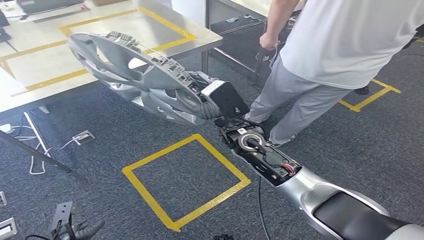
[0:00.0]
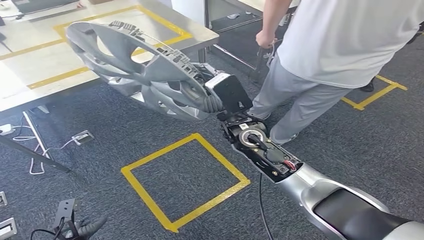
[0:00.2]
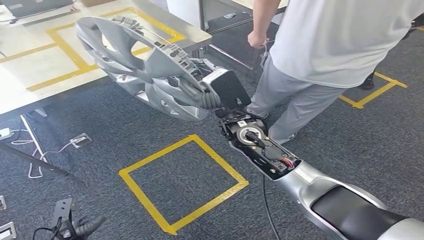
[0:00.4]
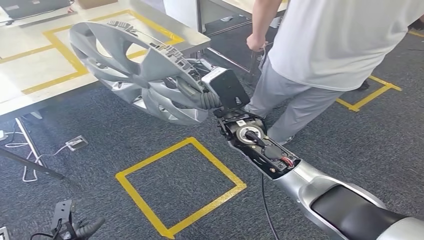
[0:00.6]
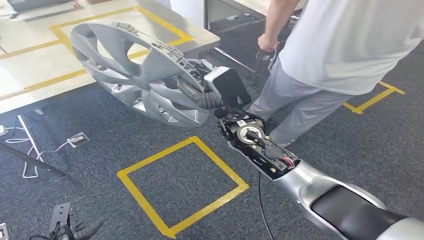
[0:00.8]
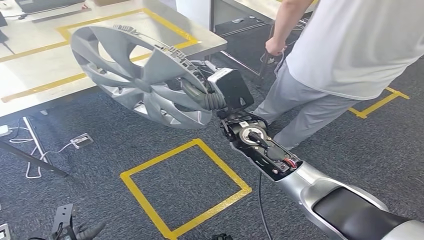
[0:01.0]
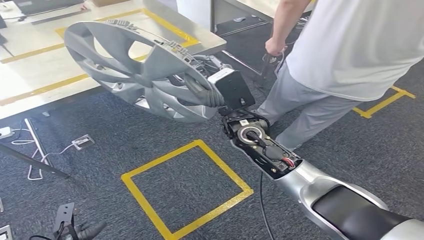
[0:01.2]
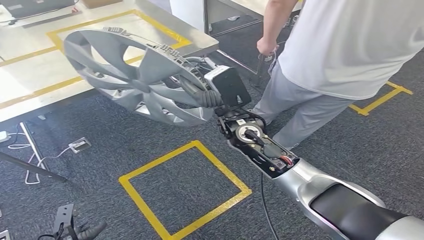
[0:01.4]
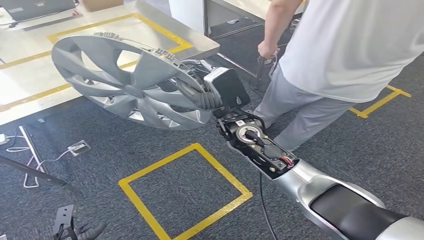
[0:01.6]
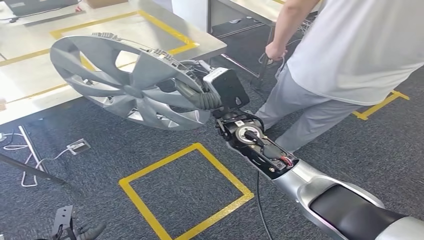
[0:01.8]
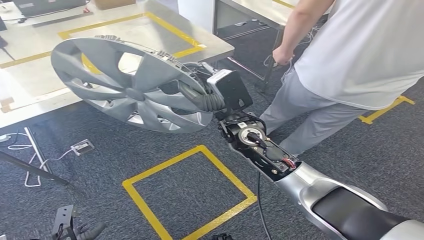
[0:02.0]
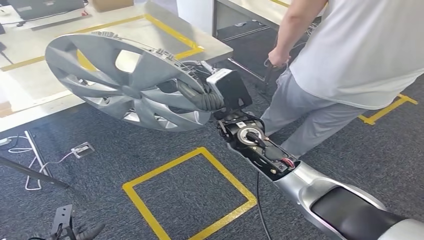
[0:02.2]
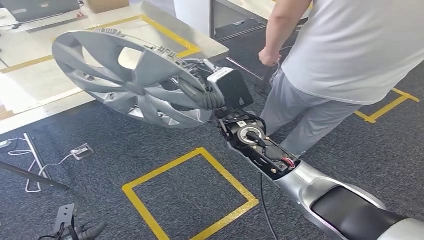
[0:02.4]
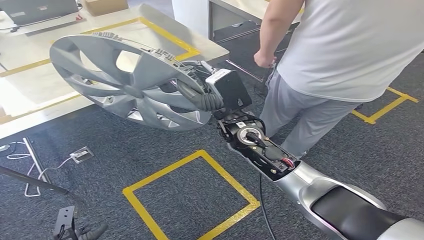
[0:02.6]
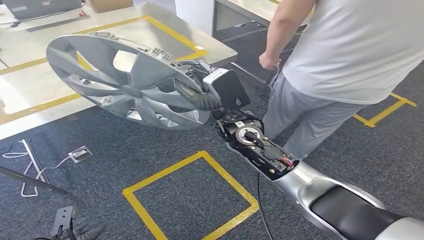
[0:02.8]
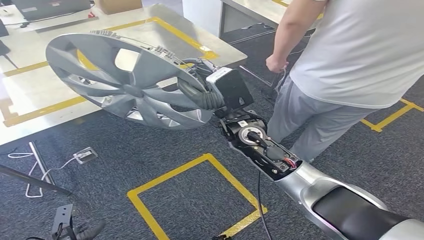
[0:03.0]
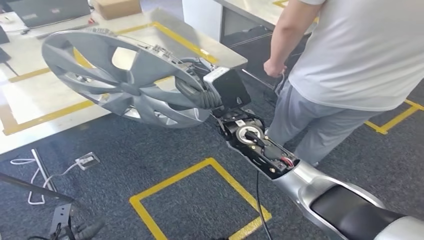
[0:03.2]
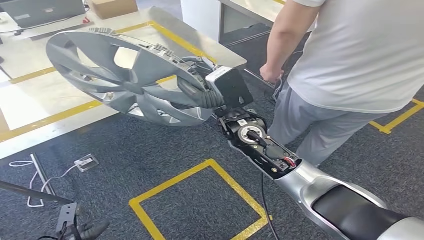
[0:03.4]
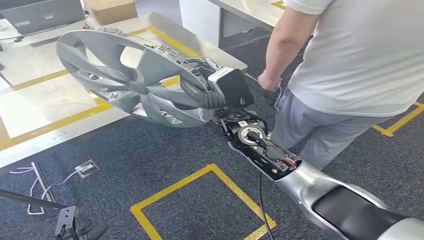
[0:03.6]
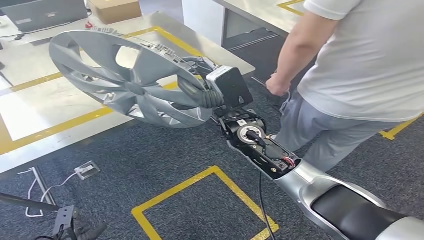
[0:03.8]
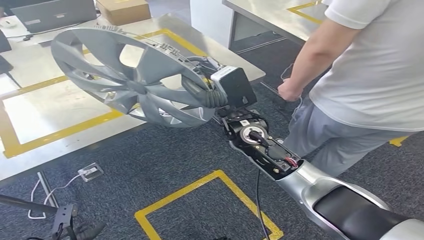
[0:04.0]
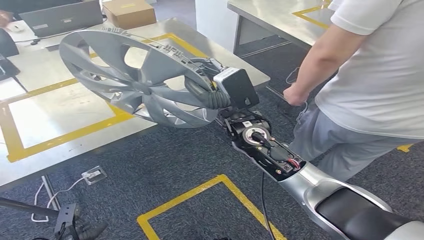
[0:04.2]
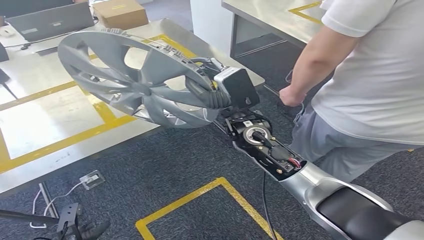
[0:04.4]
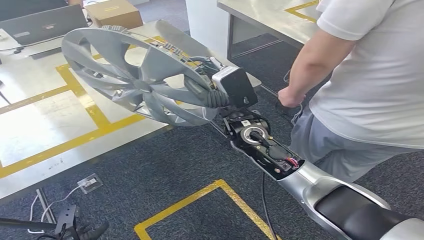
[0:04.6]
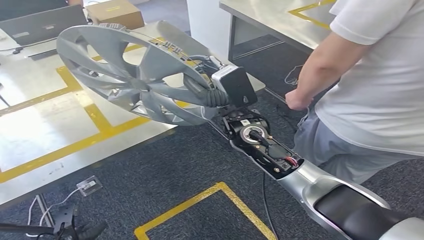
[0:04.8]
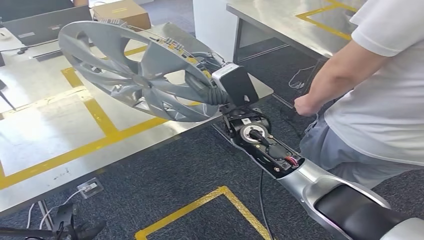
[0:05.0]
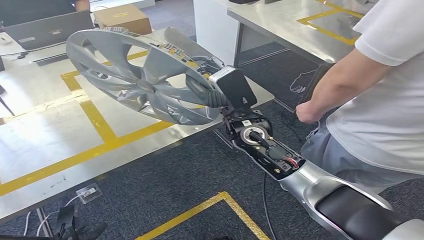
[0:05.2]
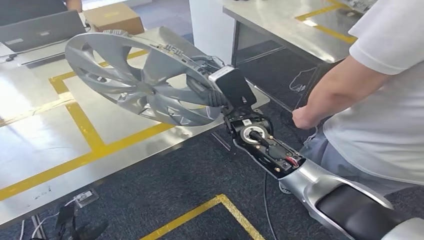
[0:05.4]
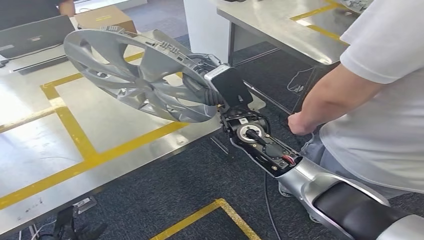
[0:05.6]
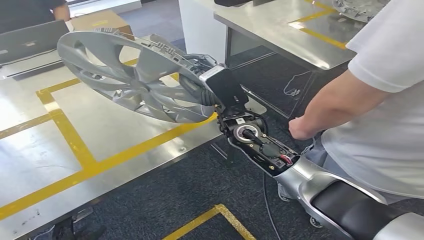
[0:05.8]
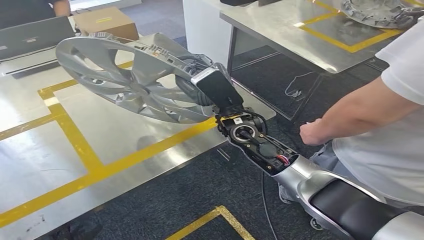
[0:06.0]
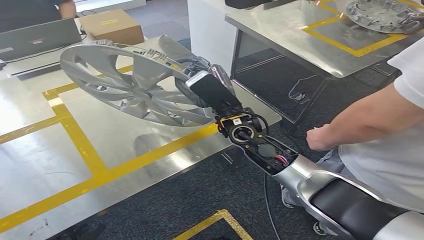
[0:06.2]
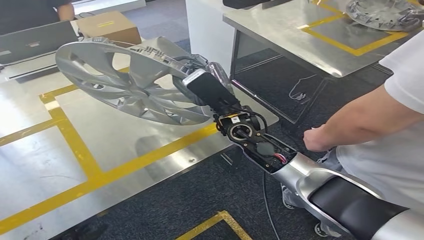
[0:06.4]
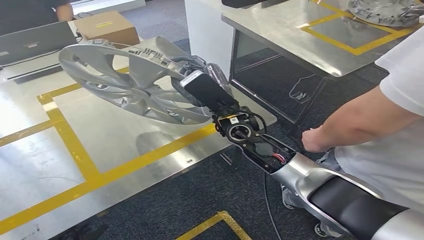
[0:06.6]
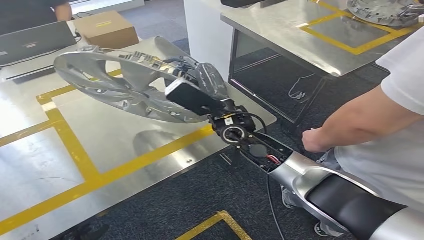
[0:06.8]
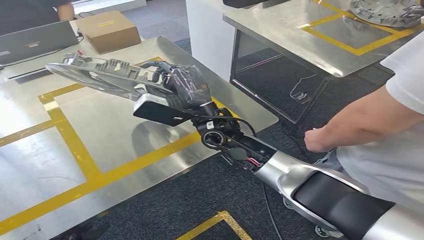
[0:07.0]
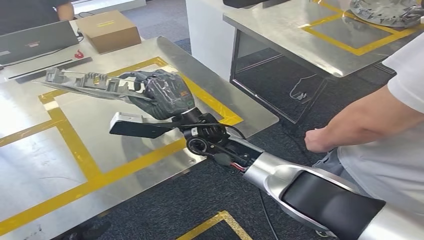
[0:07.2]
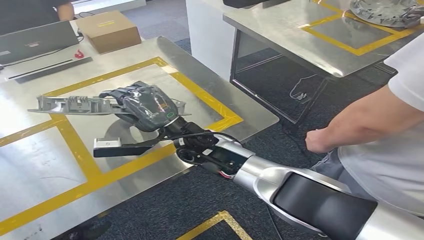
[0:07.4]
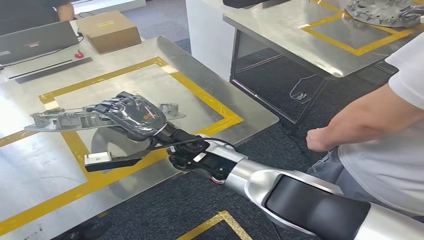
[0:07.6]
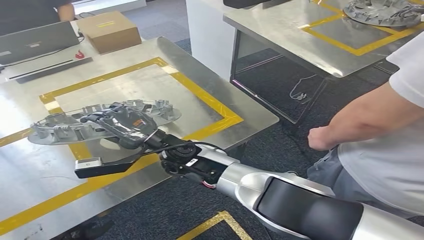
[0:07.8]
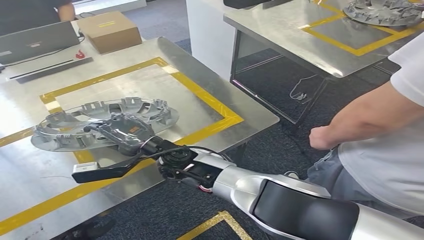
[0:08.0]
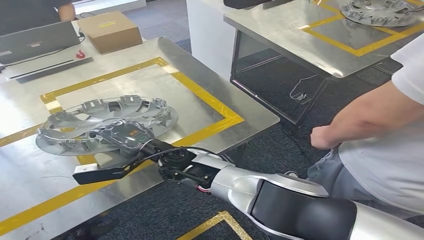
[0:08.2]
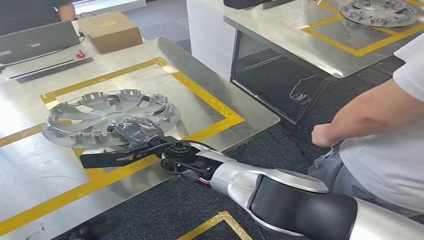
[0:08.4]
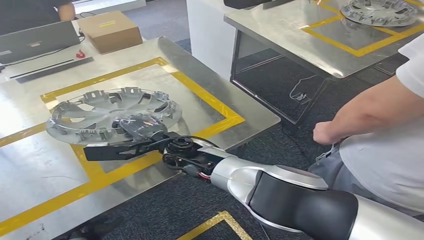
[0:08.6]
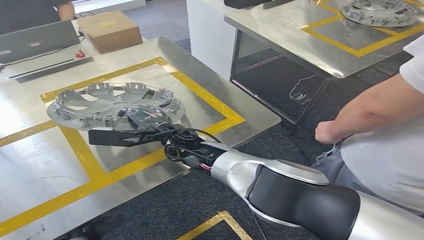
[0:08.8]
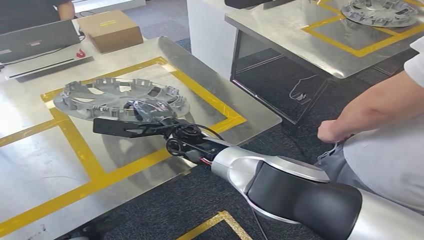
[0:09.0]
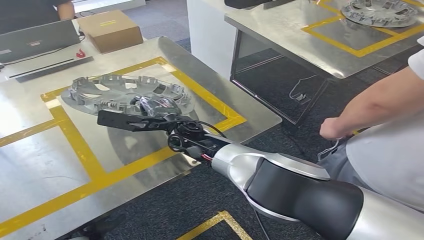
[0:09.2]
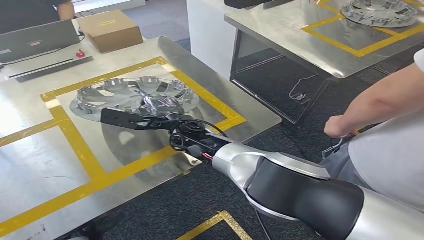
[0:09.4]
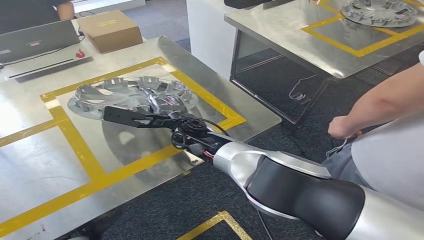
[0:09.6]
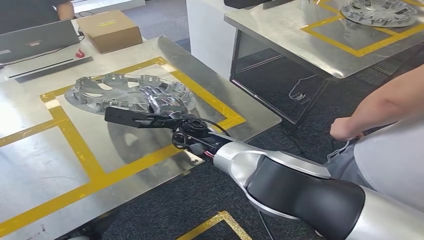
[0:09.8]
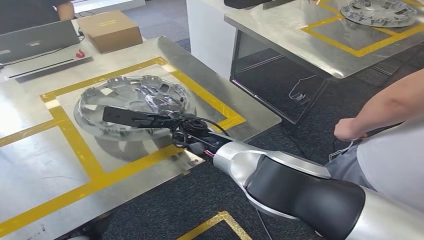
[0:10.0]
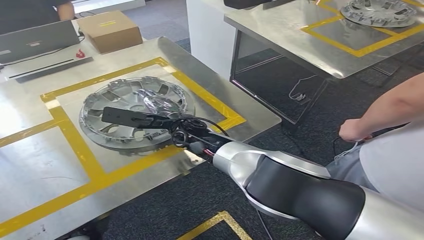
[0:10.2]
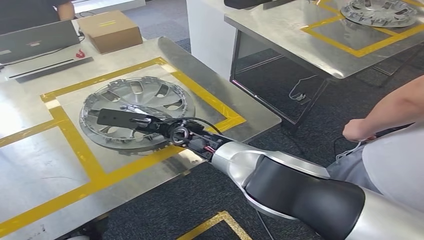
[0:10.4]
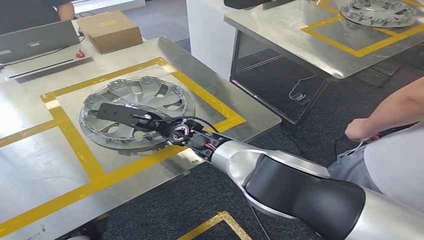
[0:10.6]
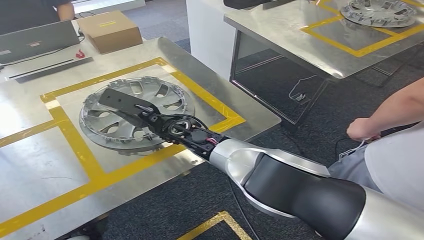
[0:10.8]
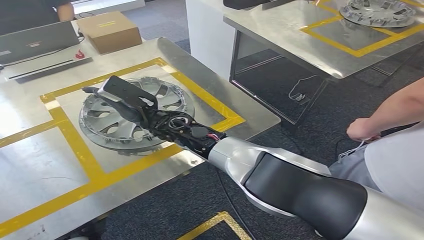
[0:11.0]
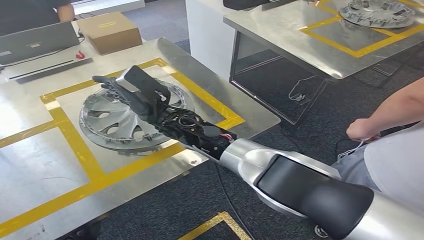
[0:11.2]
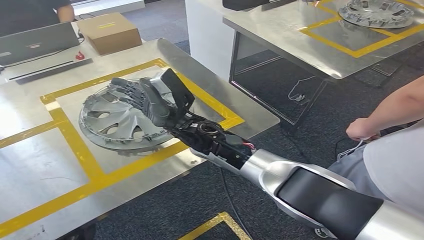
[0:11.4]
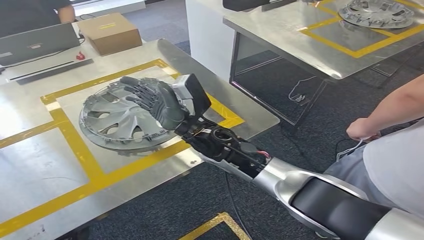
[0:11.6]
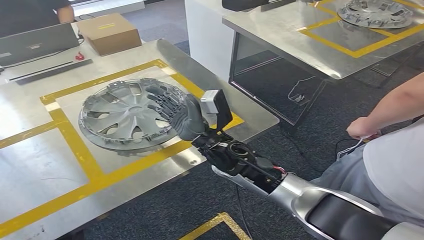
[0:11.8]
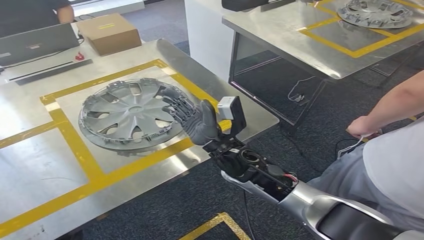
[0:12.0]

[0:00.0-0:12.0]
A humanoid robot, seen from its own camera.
Step, 0:00.0 to 0:05.6: Move the small component to the workbench.

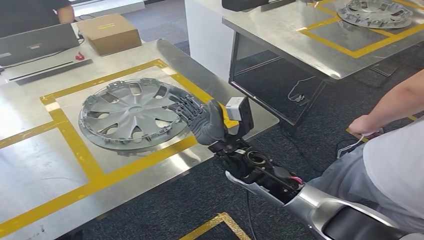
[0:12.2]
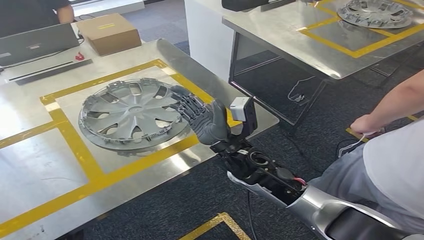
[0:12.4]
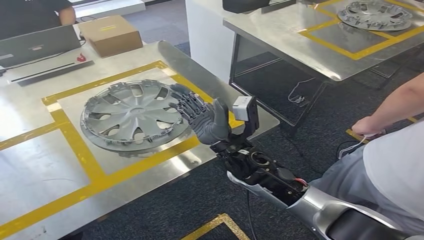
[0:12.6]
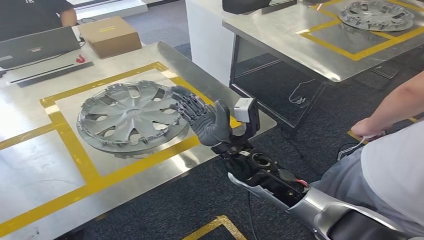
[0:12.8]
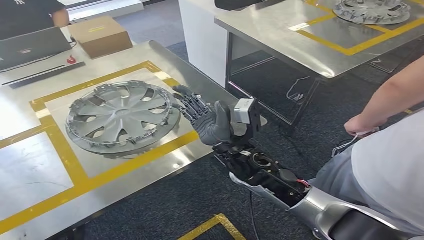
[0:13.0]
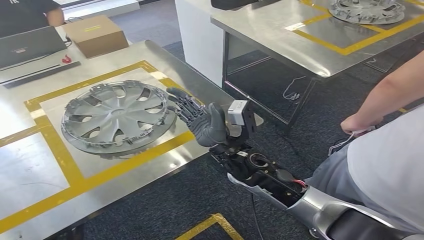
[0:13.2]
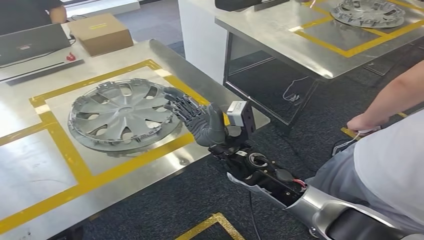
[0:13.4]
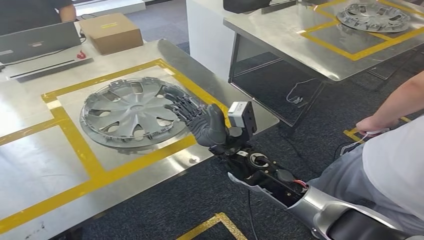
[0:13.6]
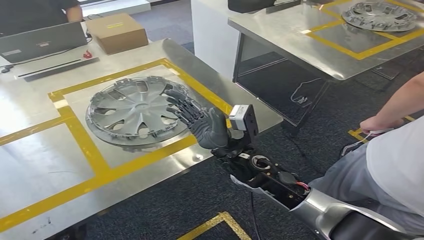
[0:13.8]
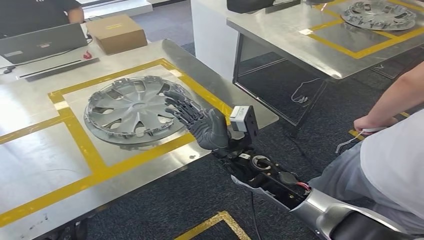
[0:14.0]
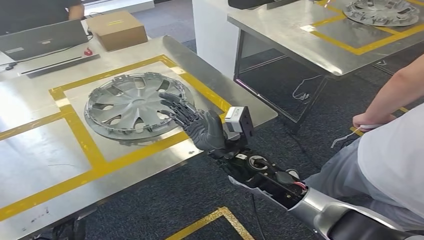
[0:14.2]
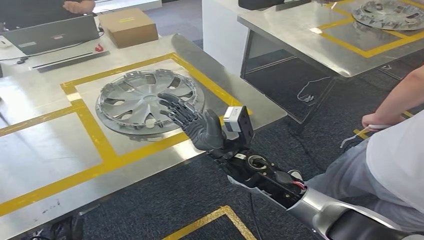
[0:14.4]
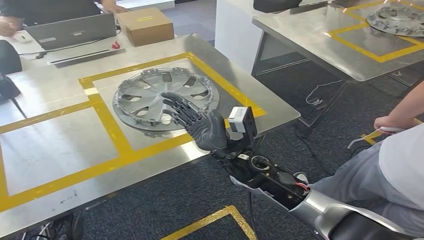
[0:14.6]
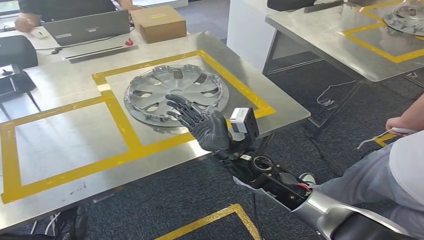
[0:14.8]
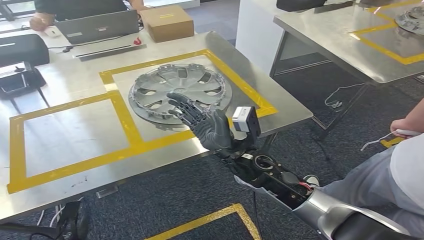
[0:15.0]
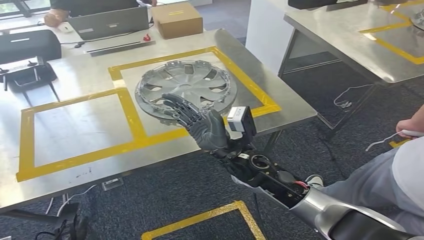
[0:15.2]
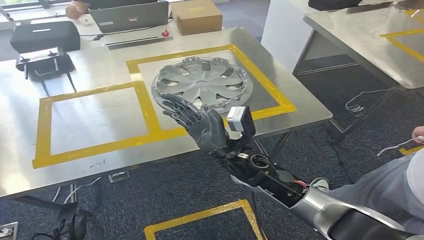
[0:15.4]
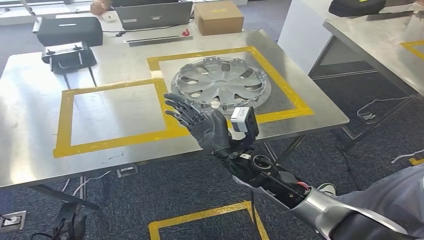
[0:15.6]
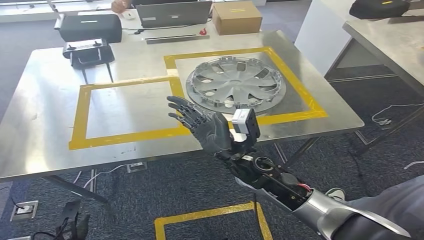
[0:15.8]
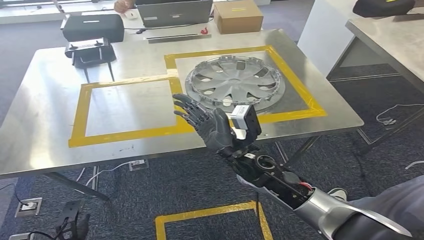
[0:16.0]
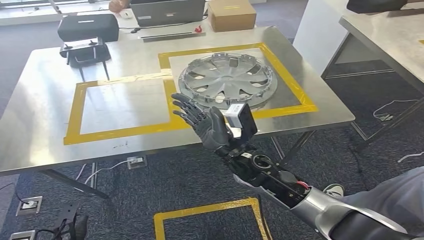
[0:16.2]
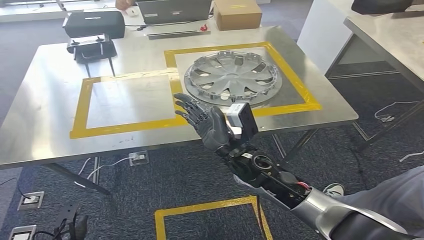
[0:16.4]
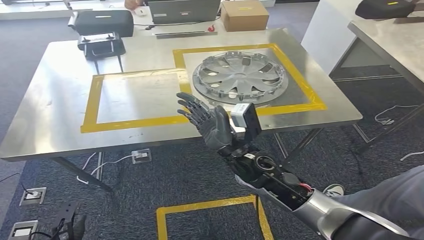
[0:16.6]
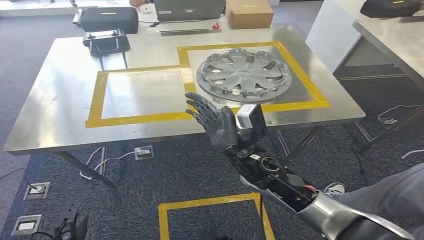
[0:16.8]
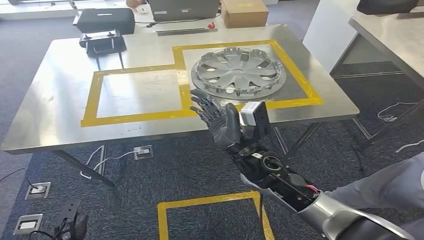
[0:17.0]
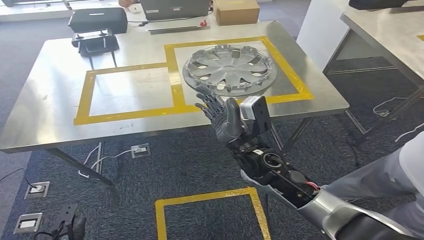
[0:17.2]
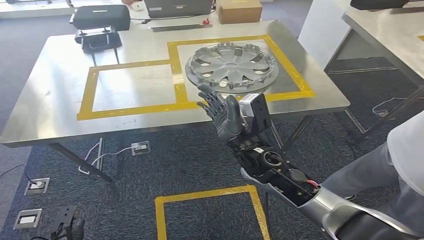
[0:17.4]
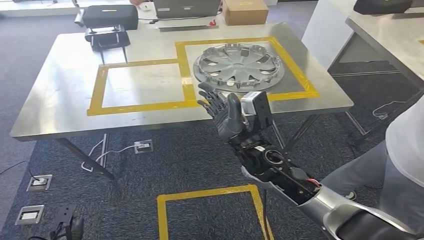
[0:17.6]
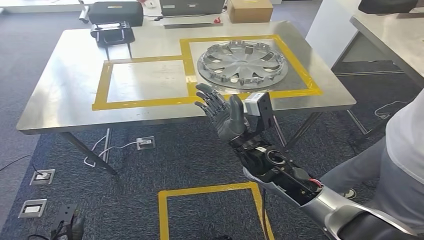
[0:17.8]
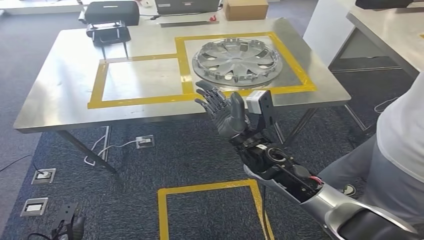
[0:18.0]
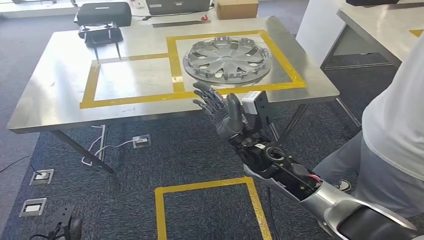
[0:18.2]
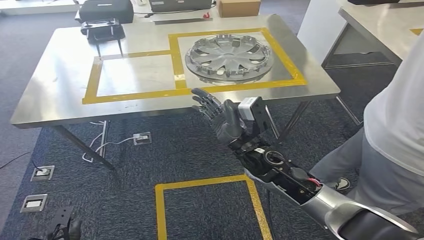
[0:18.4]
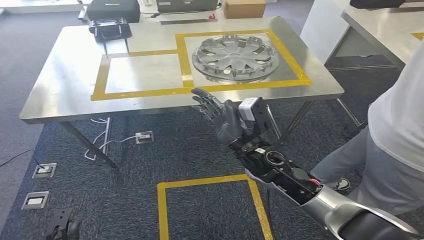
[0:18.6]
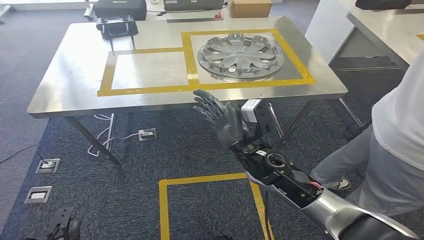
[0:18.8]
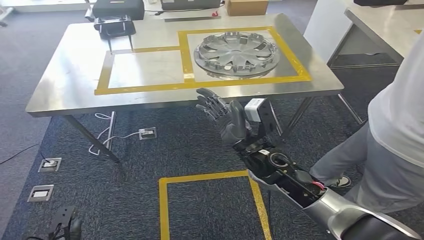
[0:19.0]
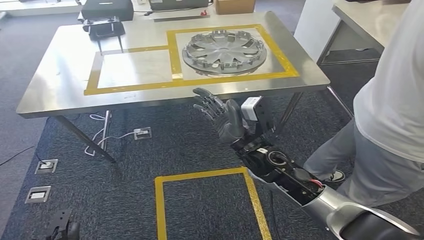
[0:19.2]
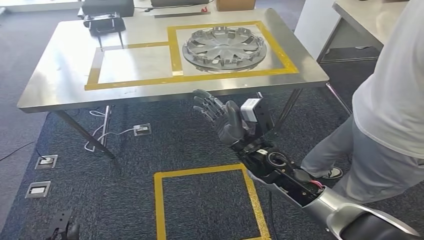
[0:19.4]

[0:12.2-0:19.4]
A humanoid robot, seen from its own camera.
0:12.2 to 0:13.6: The hands stay close to where they were, moving slightly.
